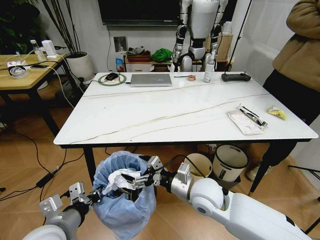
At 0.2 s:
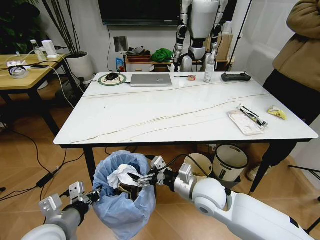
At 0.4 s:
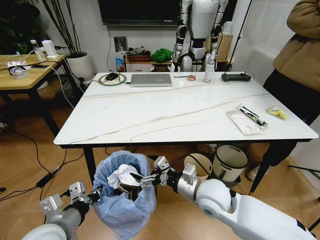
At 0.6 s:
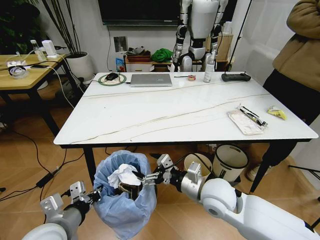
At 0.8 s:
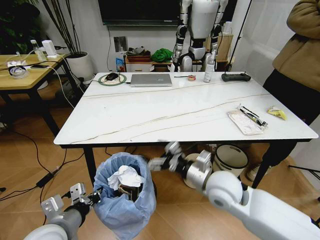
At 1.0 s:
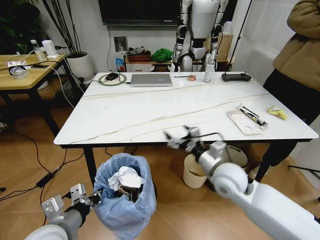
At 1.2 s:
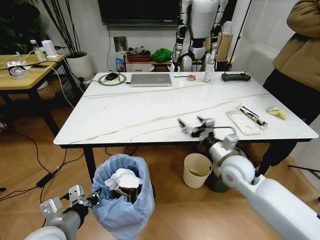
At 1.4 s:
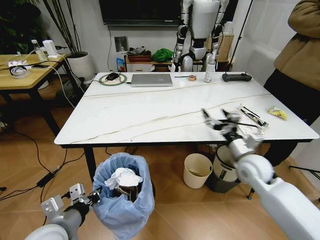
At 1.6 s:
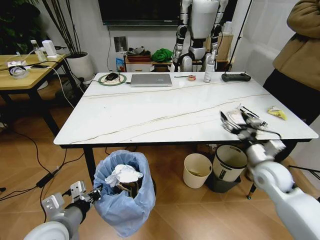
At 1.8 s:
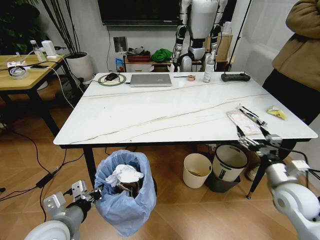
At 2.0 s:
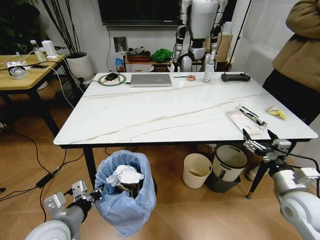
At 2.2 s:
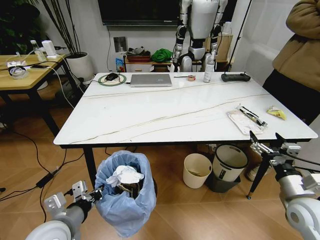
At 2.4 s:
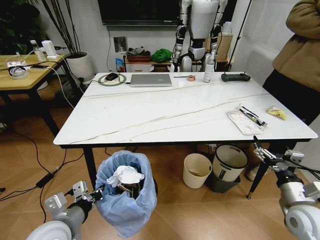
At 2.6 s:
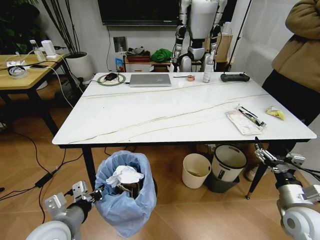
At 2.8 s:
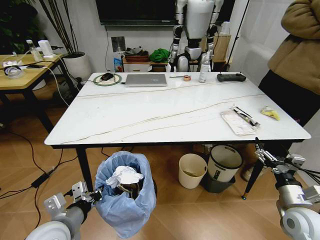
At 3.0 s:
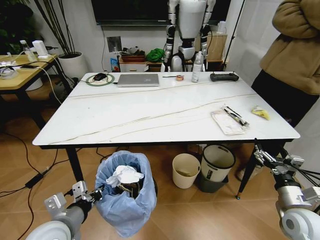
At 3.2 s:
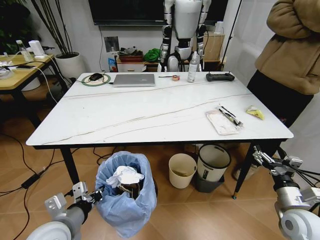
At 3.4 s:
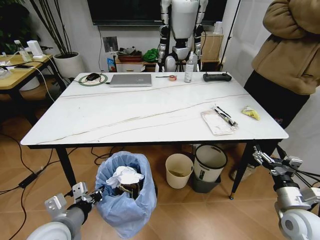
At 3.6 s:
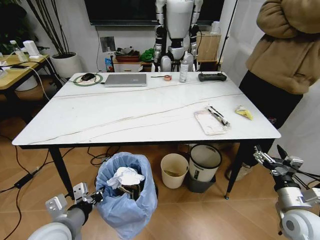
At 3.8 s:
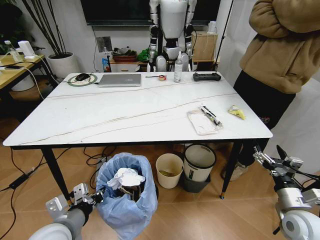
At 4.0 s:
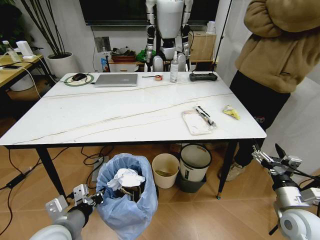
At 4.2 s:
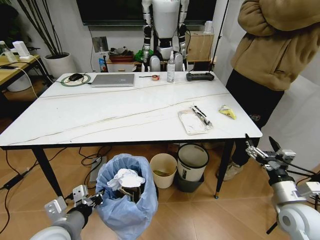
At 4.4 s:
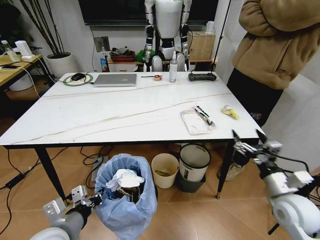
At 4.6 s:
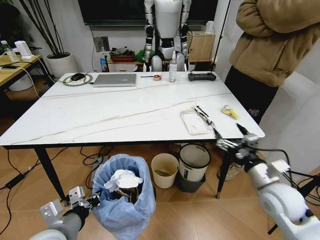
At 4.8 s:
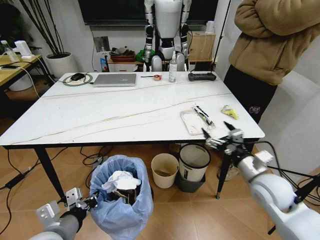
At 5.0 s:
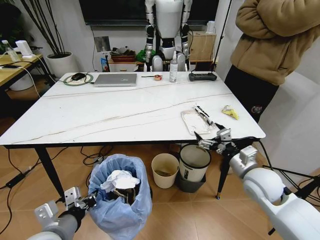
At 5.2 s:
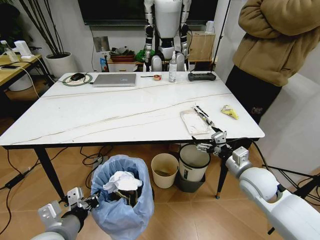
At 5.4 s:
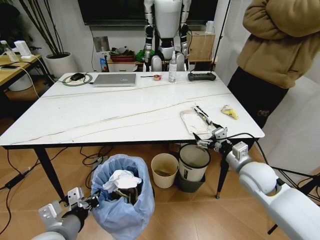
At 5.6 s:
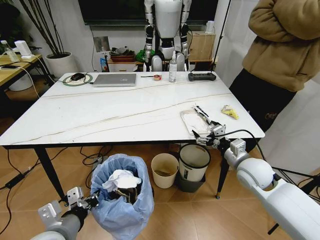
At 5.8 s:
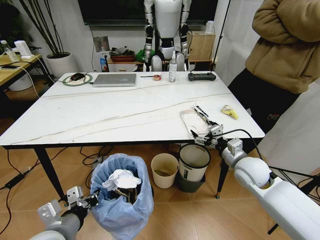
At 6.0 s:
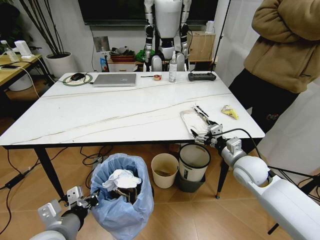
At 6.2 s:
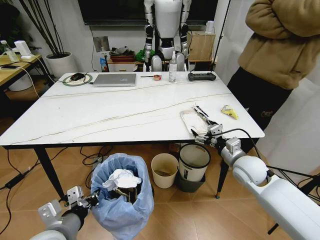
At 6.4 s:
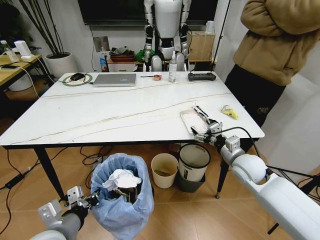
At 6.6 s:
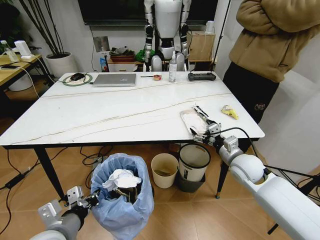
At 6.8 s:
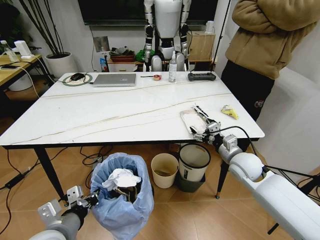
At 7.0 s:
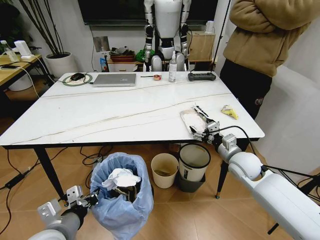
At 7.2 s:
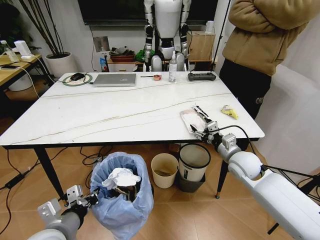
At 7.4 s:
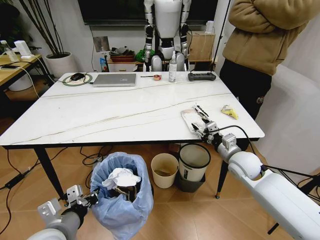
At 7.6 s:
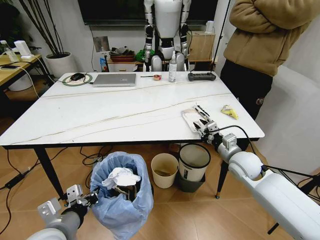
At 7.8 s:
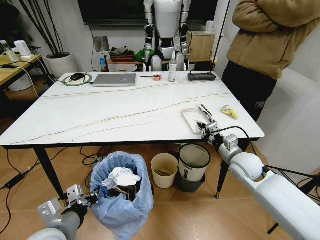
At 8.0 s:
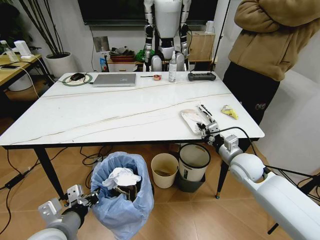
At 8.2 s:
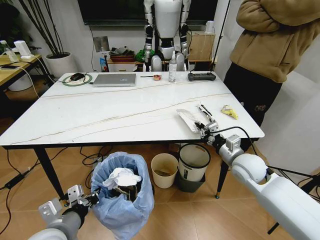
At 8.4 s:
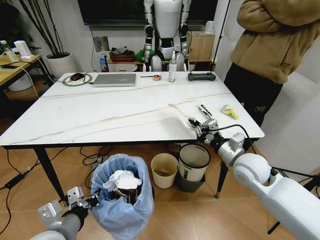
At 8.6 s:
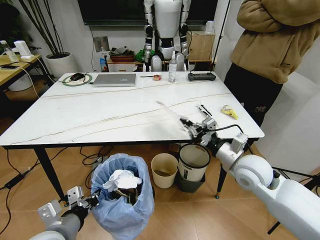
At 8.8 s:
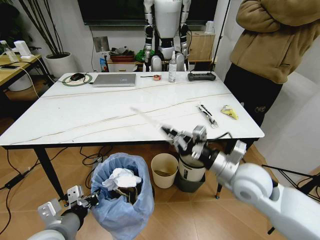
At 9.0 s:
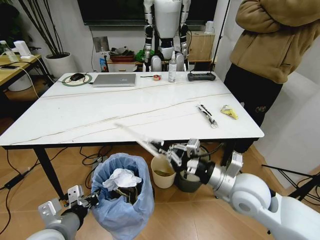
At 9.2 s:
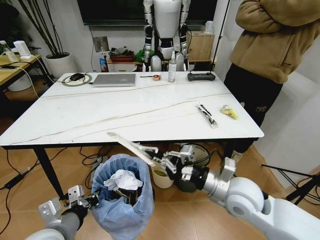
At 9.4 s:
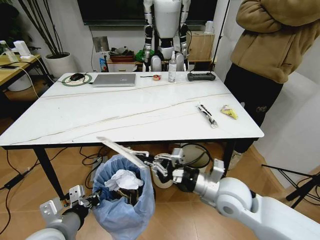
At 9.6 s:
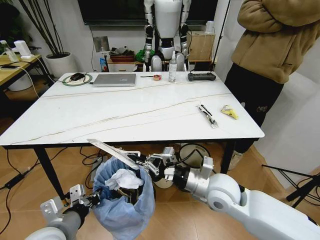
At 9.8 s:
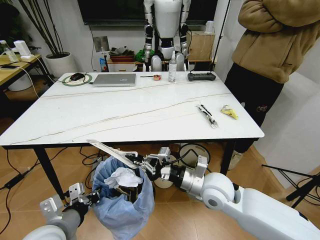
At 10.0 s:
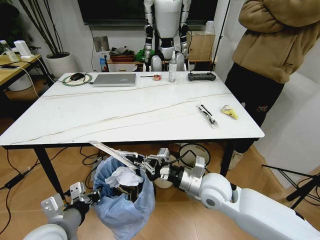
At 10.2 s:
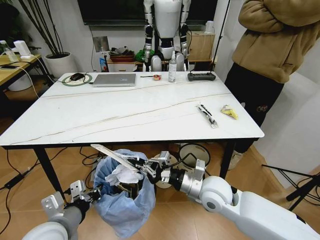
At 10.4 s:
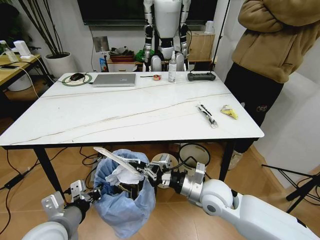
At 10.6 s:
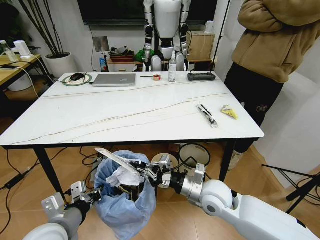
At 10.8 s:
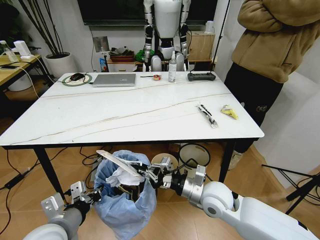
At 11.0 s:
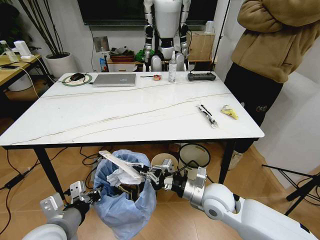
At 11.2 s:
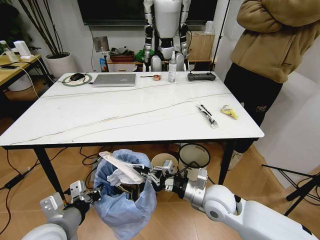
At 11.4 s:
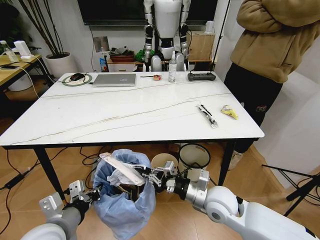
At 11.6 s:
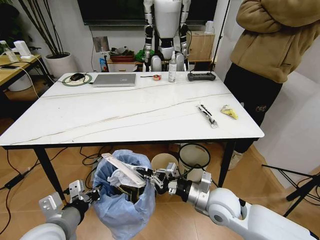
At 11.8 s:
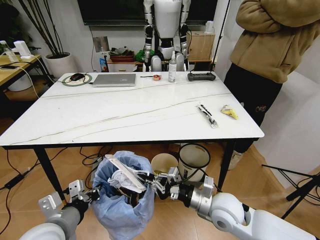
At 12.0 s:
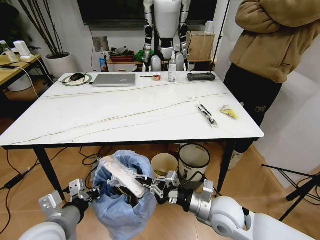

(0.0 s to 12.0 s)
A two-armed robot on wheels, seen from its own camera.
Task of the whole recording: Pick up the trash bin and place the trash from the table into it.
0.0 s - 1.6 s: The right gripper travels to the right by about 25 cm.
1.6 s - 3.0 s: The right gripper is displaced backward by roughly 15 cm.
3.0 s - 4.4 s: The right gripper changes place by approximately 5 cm.
4.4 s - 6.0 s: The right gripper goes approximately 15 cm forward and to the left.
6.0 s - 7.6 s: The right gripper closes up.
7.6 s - 9.0 s: The right gripper travels backward, upward and to the left by approximately 15 cm.
9.0 s - 10.4 s: The right gripper travels downward and to the left by approximately 10 cm.
10.4 s - 12.0 s: The right gripper moves some 5 cm.

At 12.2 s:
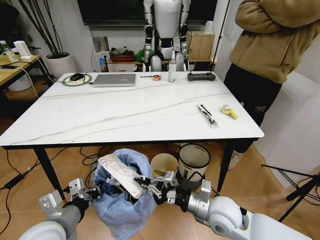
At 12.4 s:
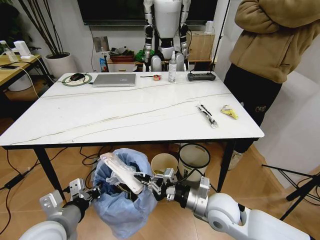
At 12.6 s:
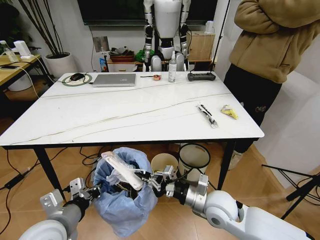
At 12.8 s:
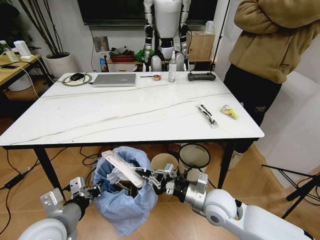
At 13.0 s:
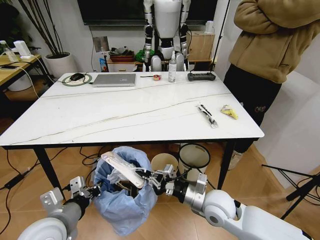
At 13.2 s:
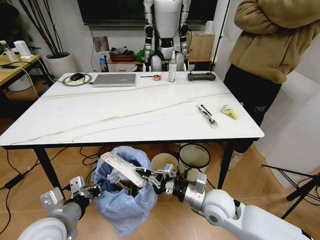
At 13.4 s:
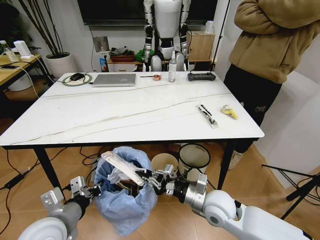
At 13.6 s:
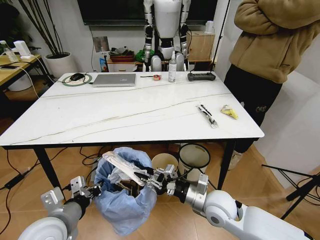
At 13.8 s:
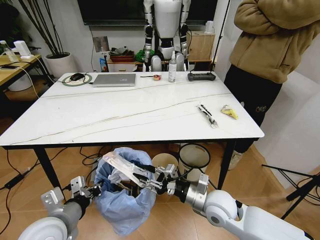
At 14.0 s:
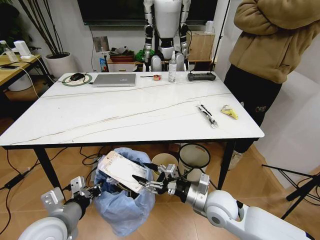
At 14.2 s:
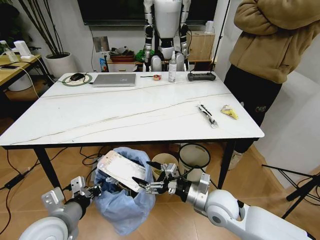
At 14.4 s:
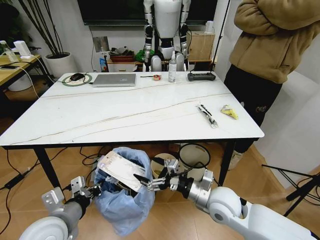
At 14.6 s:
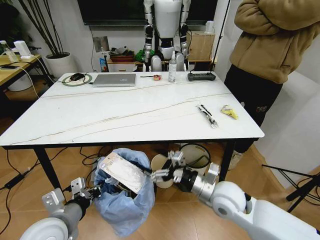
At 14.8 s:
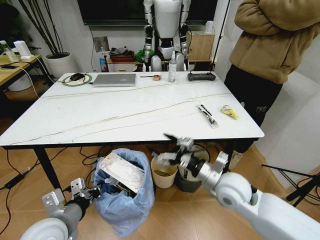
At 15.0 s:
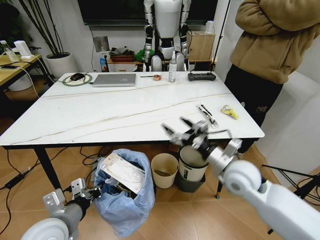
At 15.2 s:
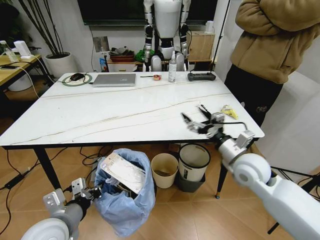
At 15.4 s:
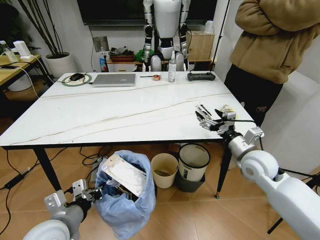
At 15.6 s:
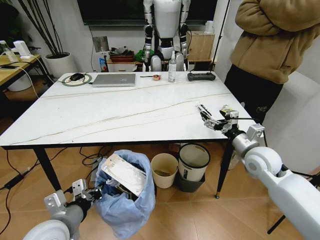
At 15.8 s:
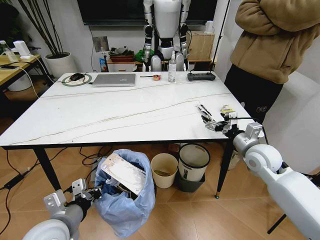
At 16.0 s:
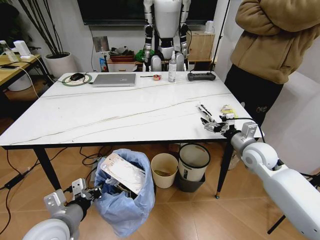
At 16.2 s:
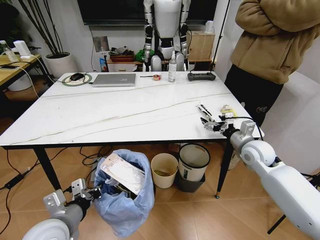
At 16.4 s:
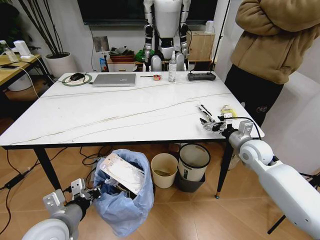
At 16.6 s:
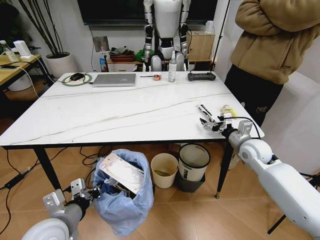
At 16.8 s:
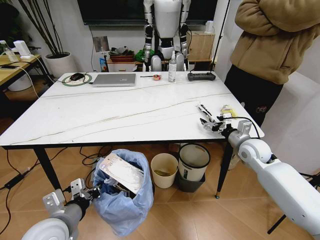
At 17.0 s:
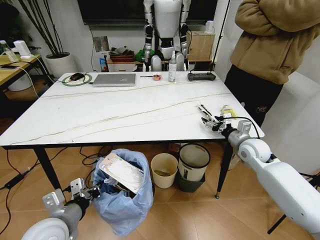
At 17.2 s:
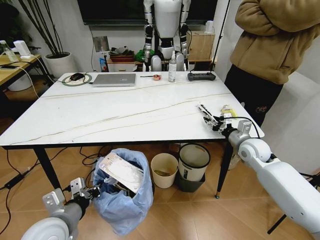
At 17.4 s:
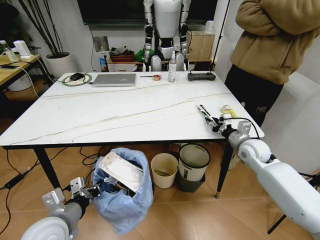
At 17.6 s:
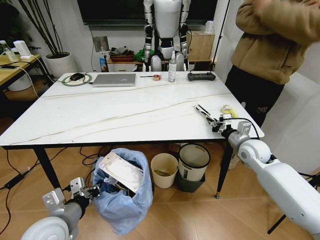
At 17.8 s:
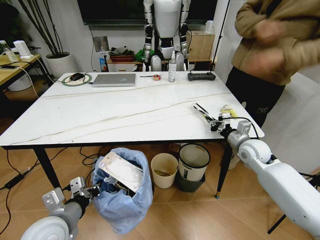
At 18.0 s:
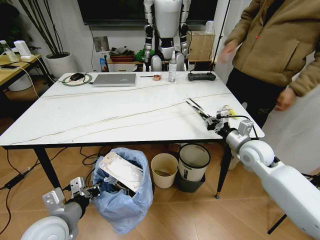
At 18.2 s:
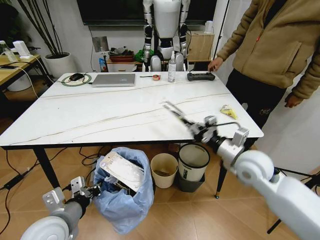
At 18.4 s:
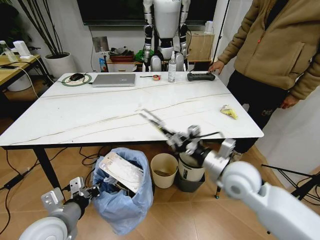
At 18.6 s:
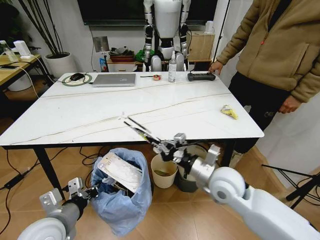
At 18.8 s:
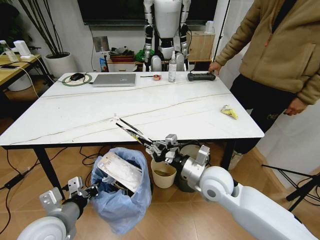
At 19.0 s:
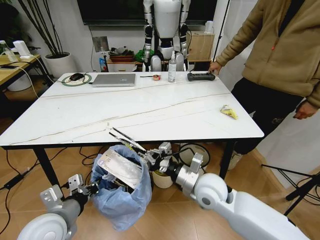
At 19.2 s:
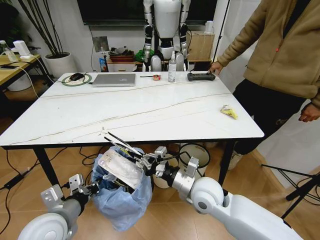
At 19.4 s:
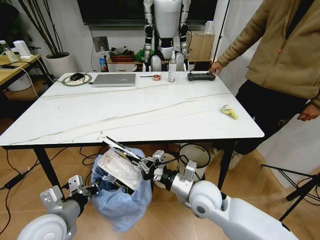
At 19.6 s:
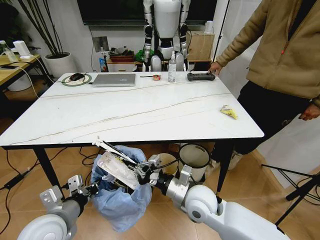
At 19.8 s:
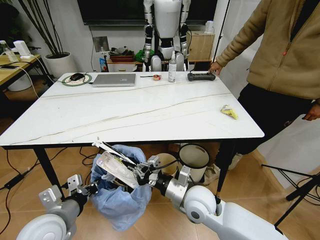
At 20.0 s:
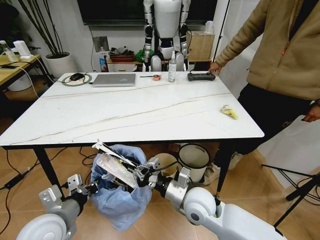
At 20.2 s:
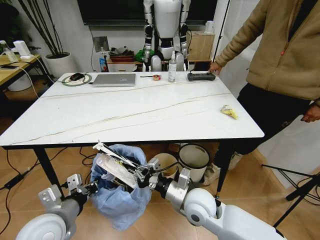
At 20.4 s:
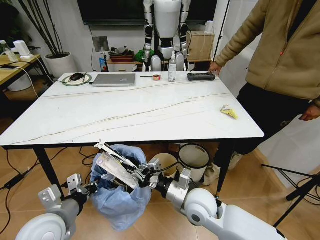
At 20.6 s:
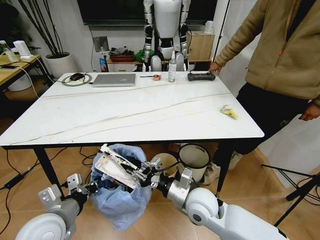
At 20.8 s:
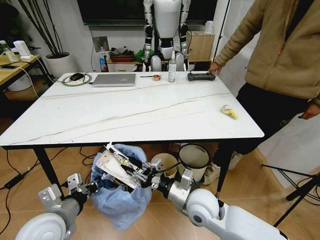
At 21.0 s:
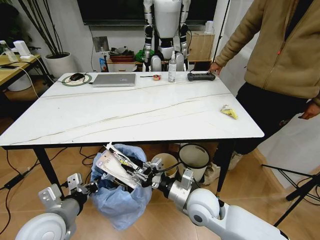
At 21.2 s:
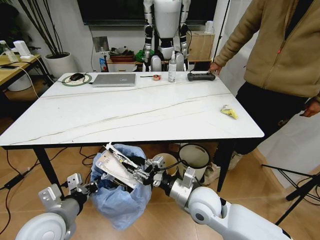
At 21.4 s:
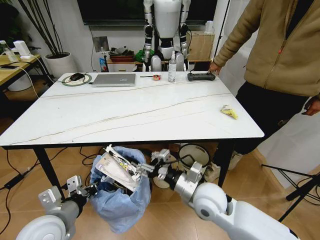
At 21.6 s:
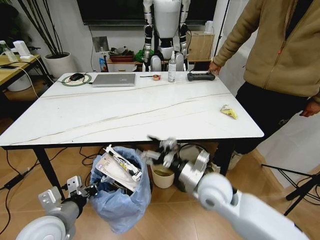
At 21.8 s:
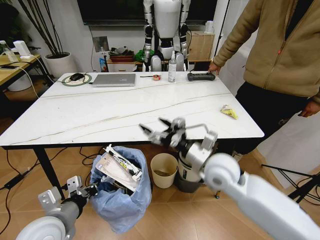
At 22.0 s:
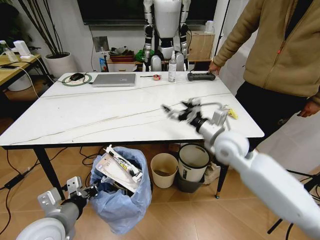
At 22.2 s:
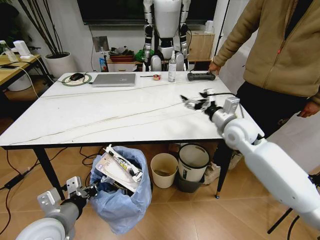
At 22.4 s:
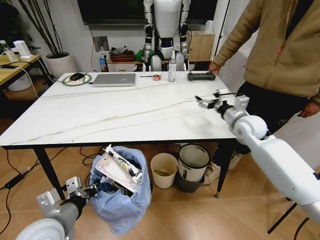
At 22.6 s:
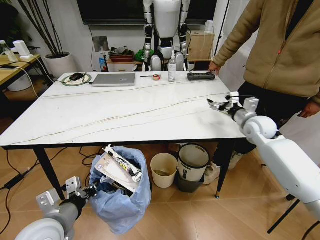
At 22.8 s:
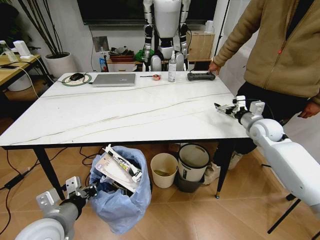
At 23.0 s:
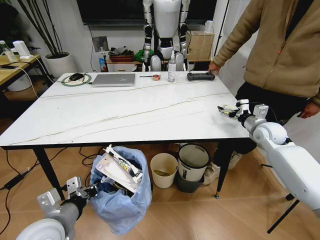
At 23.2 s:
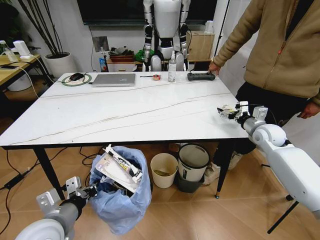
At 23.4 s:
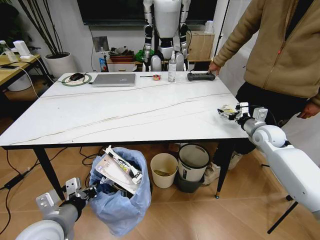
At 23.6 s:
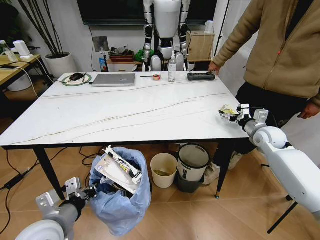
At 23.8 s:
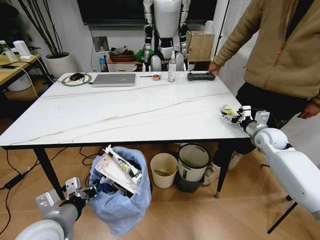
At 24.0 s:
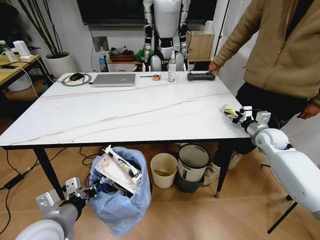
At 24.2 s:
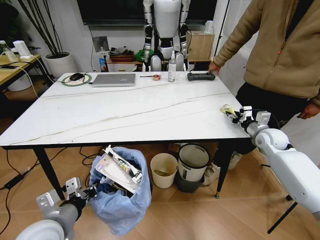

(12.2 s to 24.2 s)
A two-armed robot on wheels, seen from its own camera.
Task of the whole recording: Pick up the trash bin and place the trash from the table into it.
12.2 s - 13.8 s: The right gripper opens up.
13.8 s - 15.2 s: The right gripper goes roughly 15 cm upward, to the right and forward, and opens up.
15.2 s - 16.6 s: The right gripper moves forward and to the right, some 10 cm.
16.6 s - 18.2 s: The right gripper travels backward and to the left by approximately 10 cm, and closes.
18.2 s - 19.8 s: The right gripper travels to the left, downward and backward by some 20 cm.
19.8 s - 21.2 s: The right gripper opens up.
21.2 s - 22.6 s: The right gripper moves to the right and forward, roughly 35 cm, and opens its fingers.
22.6 s - 24.2 s: The right gripper travels to the right and downward by approximately 10 cm, and closes.
